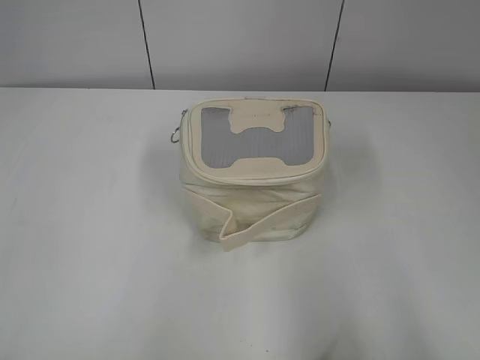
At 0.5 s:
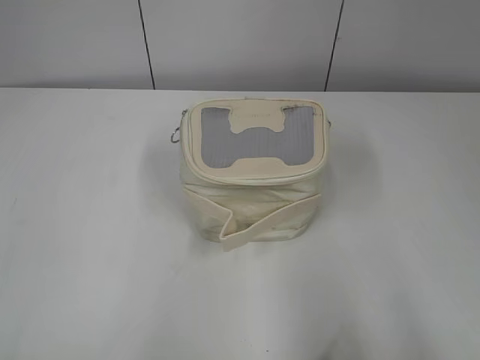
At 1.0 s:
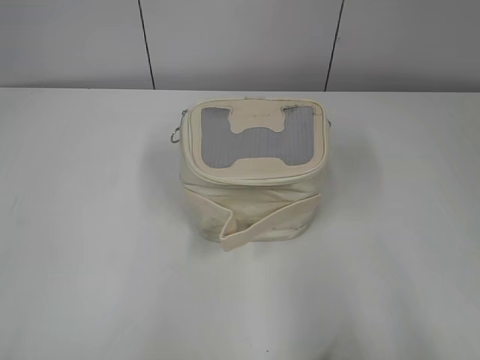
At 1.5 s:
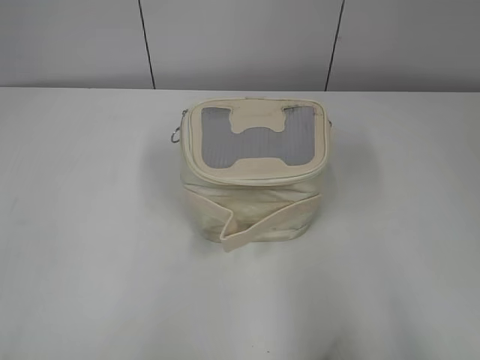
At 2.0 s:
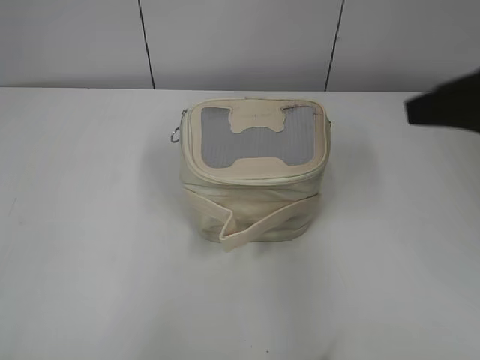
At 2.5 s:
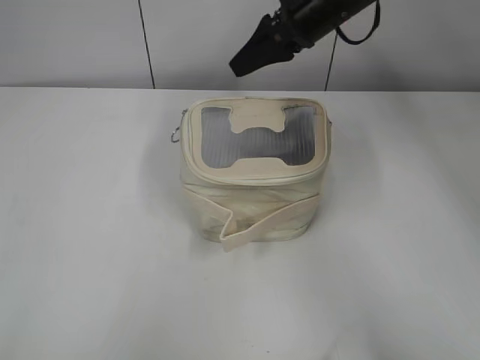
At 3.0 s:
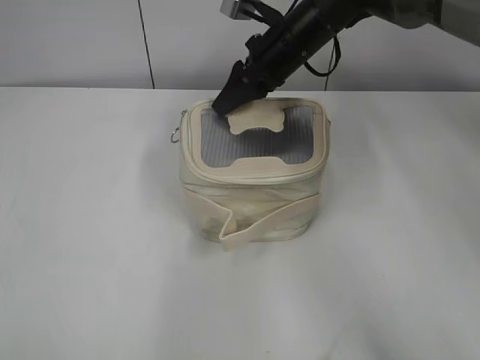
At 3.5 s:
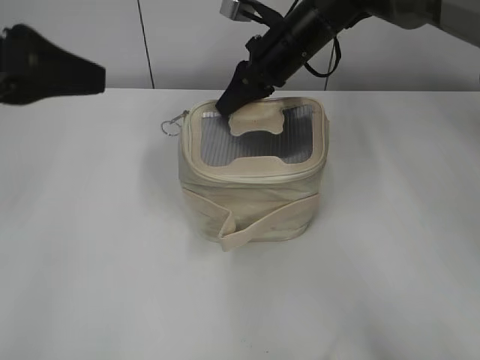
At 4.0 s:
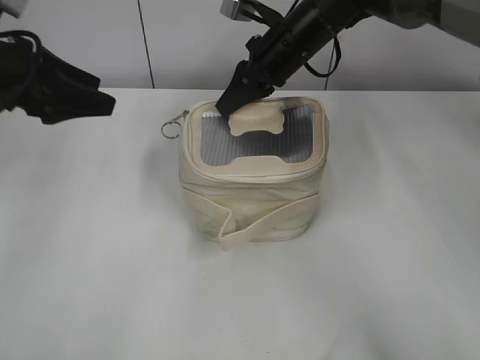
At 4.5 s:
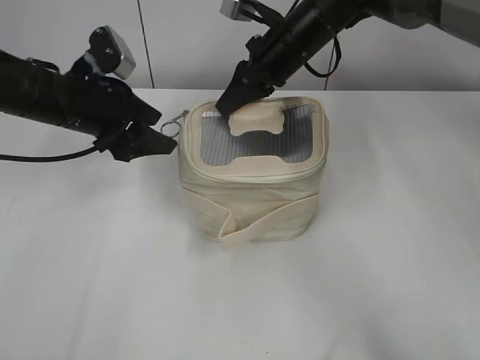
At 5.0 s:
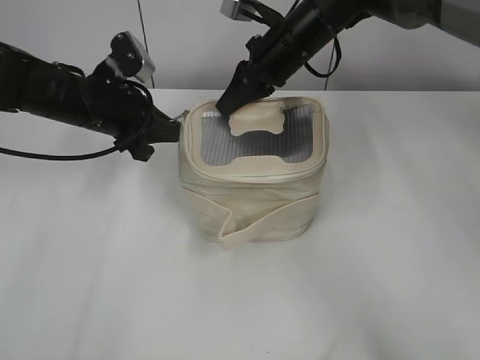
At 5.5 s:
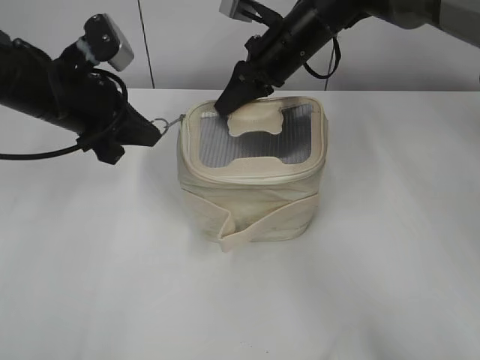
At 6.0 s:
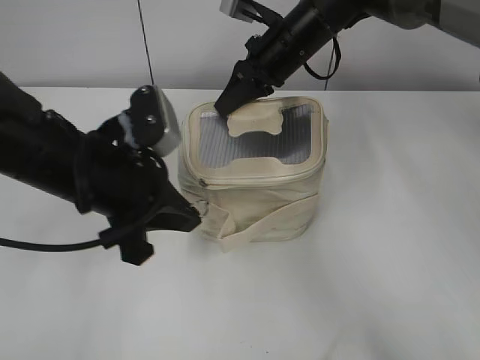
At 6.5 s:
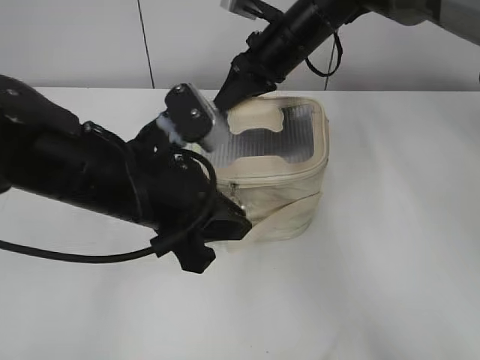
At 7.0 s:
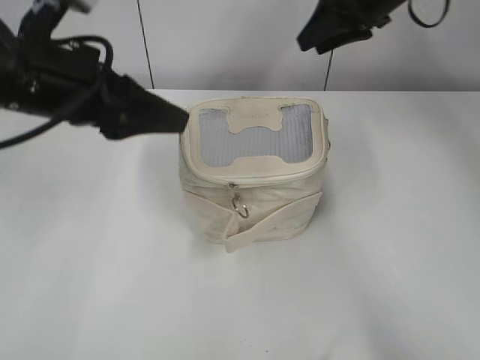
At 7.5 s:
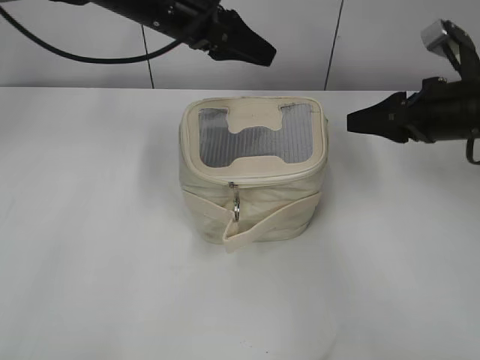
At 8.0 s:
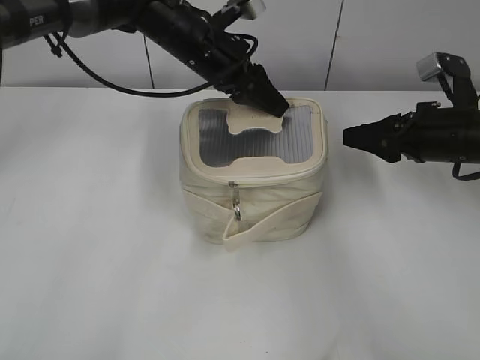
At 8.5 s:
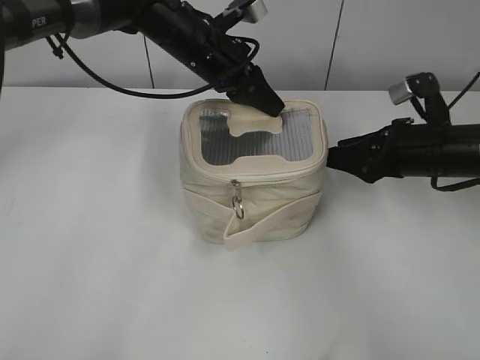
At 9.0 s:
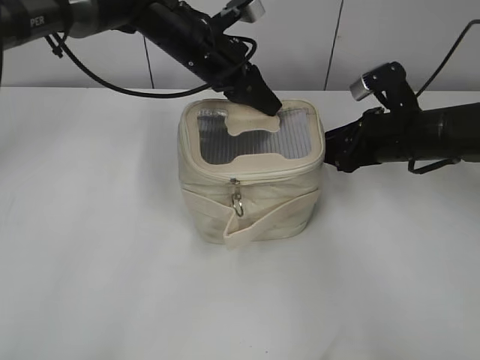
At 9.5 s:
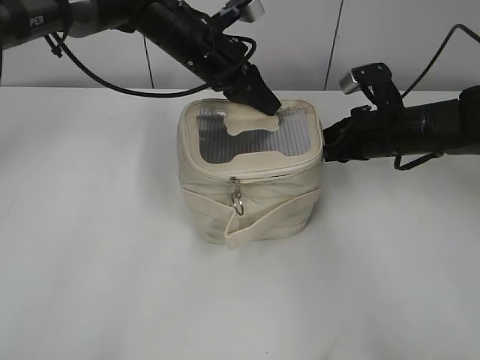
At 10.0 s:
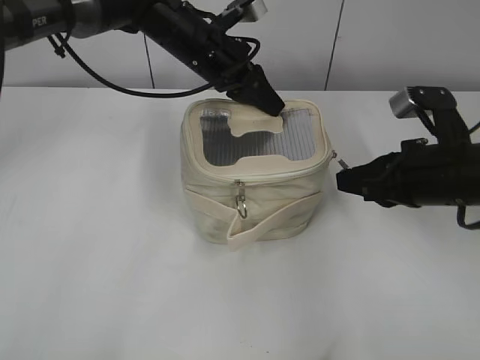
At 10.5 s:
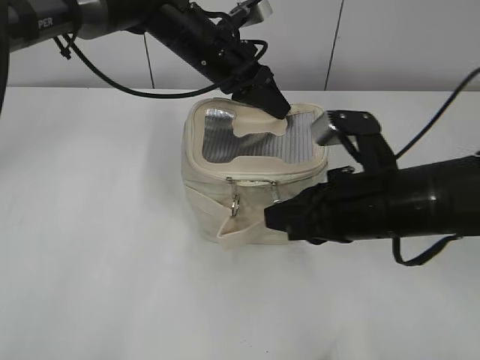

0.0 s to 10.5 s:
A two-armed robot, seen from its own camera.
Step, 0.0 to 6.5 s: Zip up the bag with your left hand.
2.0 to 4.0 s: The right gripper shifts approximately 35 cm forward and to the left, and closes; the left gripper travels forward by roughly 35 cm, and opens.
4.0 to 6.5 s: The left gripper goes approximately 20 cm to the right and backward, and closes up.
6.5 to 8.5 s: The right gripper travels to the right, backward and downward by approximately 25 cm, and opens its fingers, while the left gripper is displaced forward by roughly 20 cm, and opens and closes again.
8.5 to 10.5 s: The right gripper is displaced backward and to the left by roughly 15 cm, and closes.

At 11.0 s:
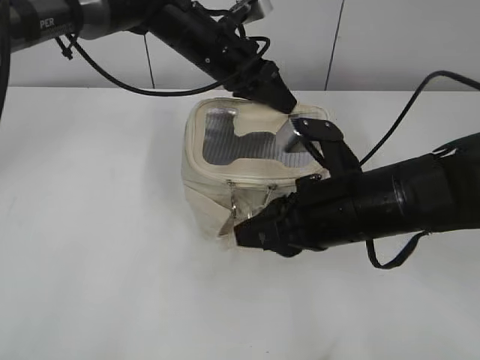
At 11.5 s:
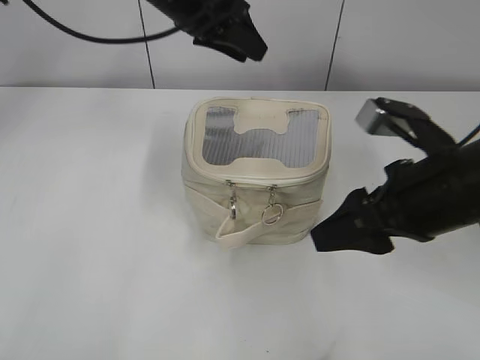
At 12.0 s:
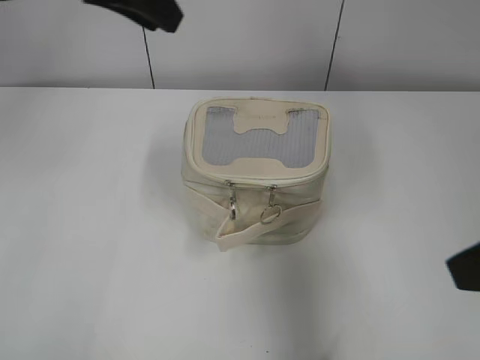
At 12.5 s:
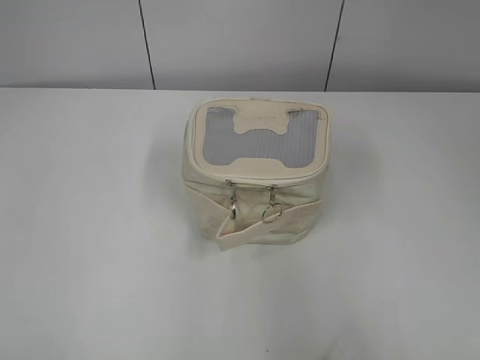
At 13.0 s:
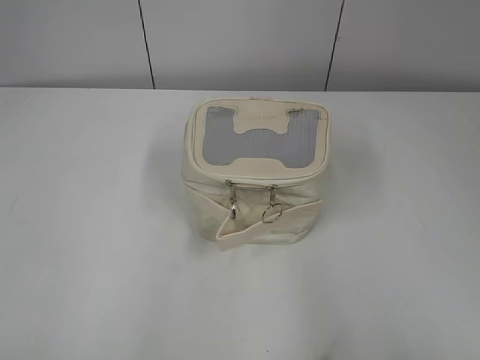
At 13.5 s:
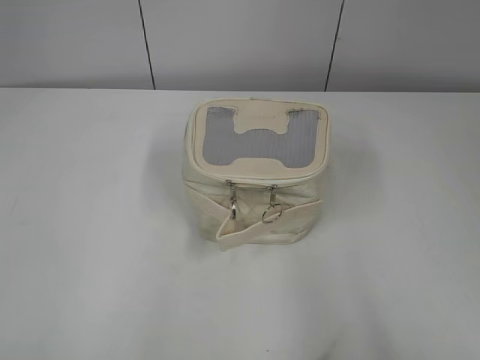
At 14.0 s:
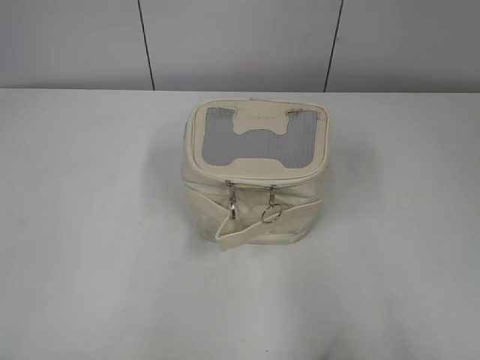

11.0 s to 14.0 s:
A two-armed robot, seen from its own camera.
11.0 to 12.5 s: The right gripper goes roughly 30 cm backward, upward and to the right, and opens. The left gripper shifts roughly 50 cm backward and to the left.

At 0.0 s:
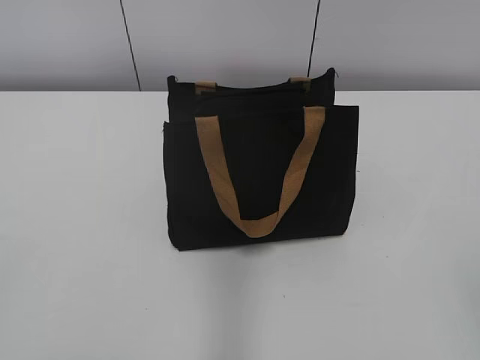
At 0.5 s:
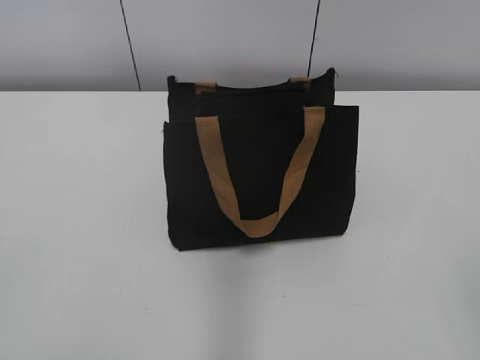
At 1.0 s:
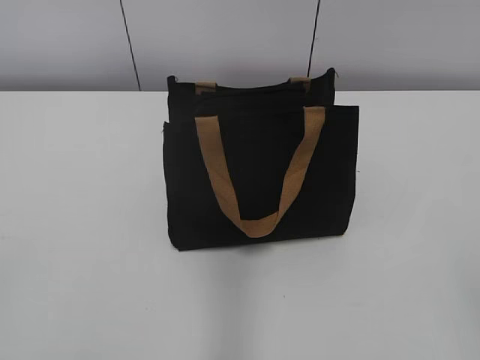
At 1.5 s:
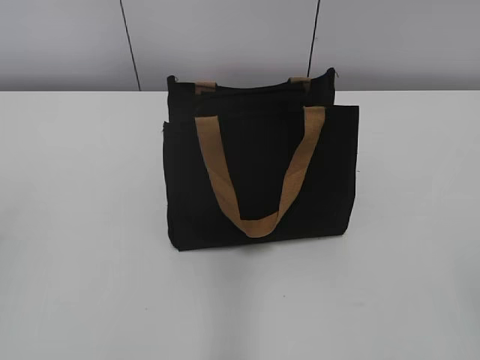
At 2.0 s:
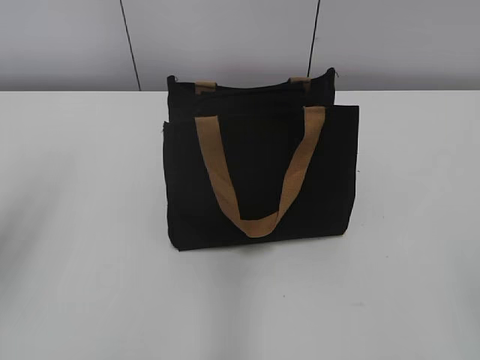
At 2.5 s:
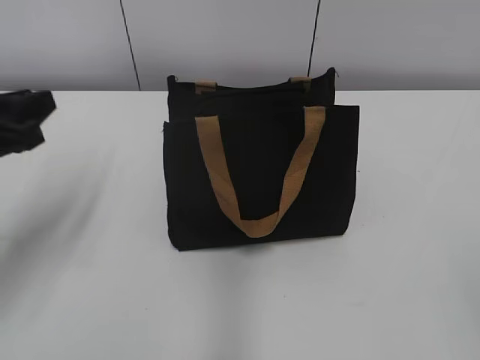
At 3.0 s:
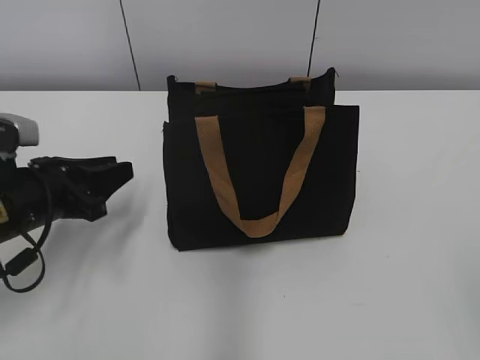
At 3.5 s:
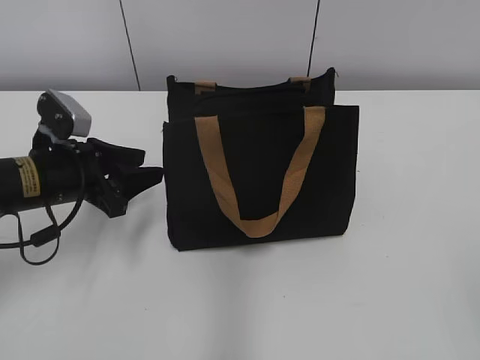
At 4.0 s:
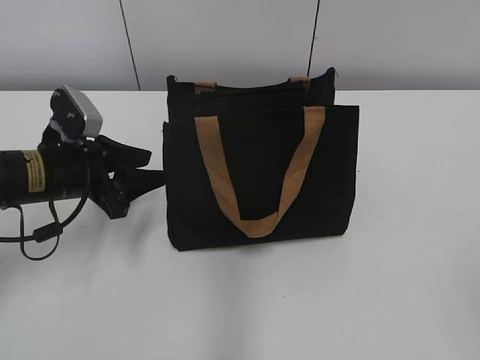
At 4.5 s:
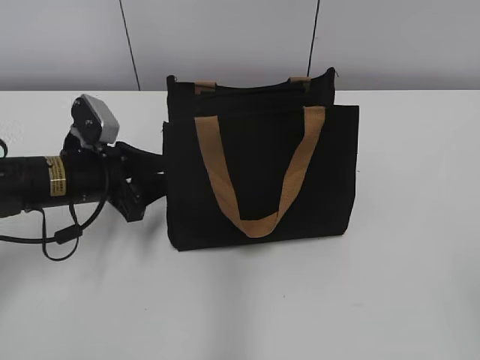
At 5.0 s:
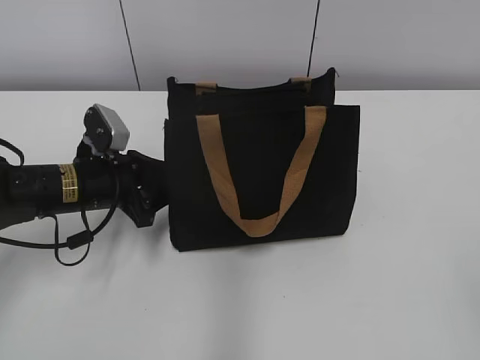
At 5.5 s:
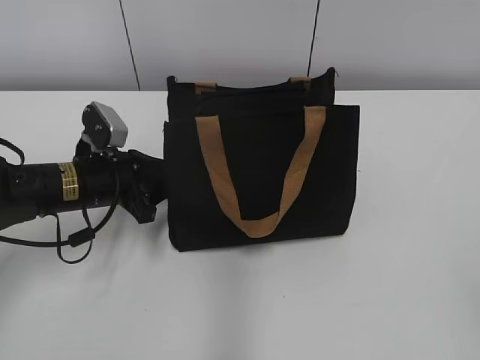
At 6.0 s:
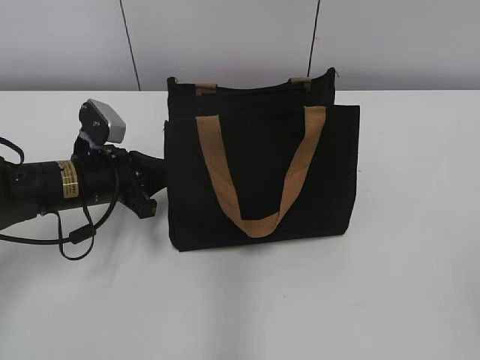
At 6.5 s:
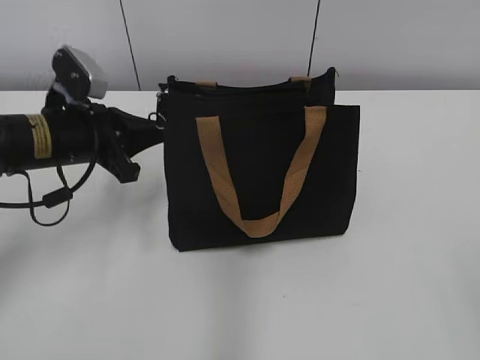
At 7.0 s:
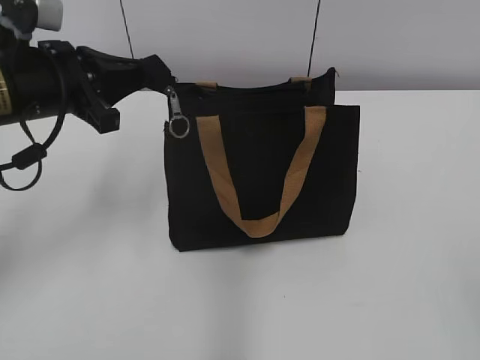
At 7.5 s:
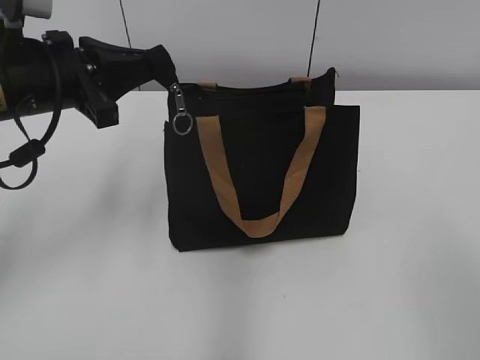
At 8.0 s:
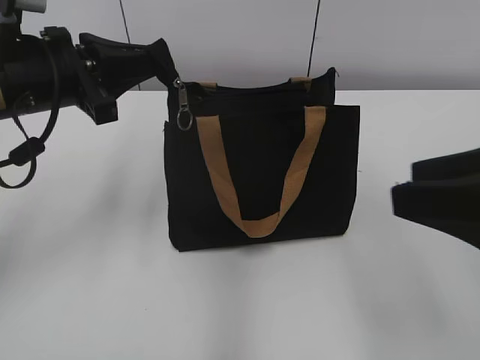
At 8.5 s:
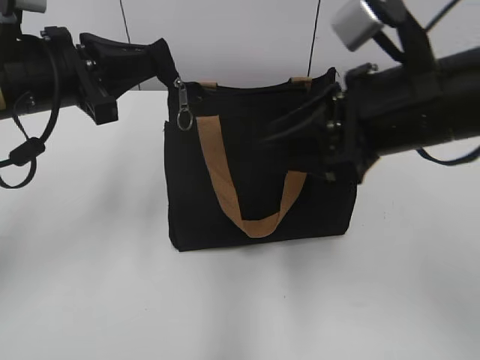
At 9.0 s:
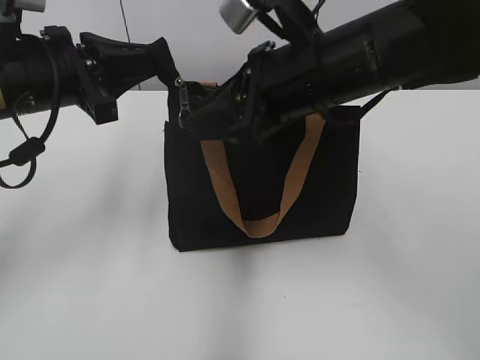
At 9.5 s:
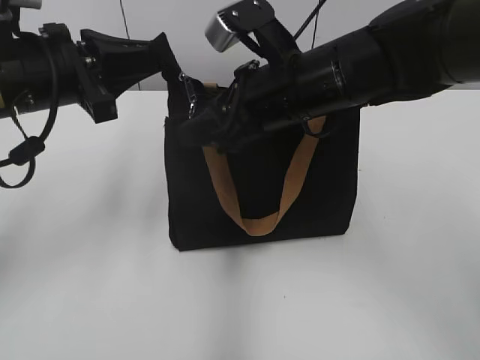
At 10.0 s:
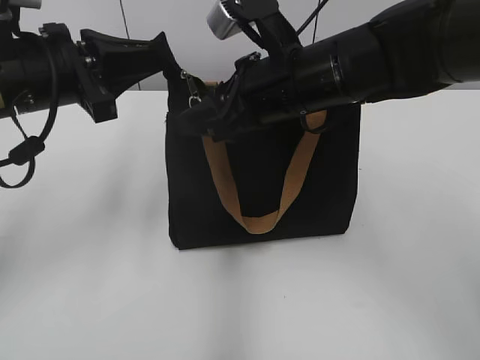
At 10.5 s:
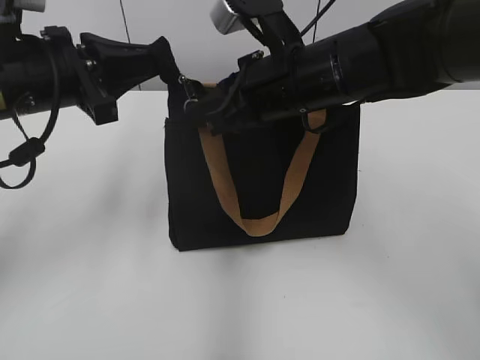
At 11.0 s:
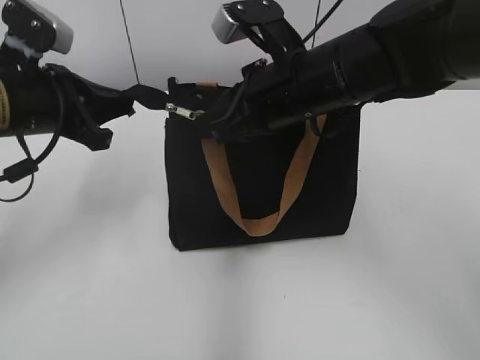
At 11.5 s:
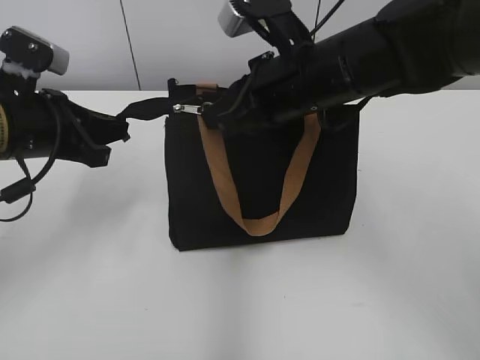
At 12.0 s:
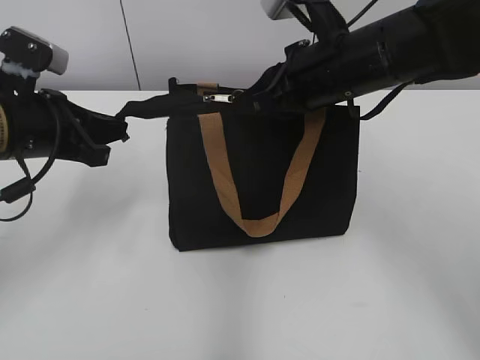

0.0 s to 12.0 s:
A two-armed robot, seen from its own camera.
2.0 to 4.0 s: The left gripper is displaced downward, forward and to the right by some 30 cm.
4.0 to 6.0 s: The left gripper closes up.
6.0 to 8.0 s: The right gripper travels forward and to the left by approximately 15 cm. The left gripper goes approximately 15 cm upward.
8.0 to 10.0 s: The right gripper moves forward and to the left, some 25 cm.
10.0 to 12.0 s: The right gripper closes up. The left gripper goes roughly 5 cm downward.
